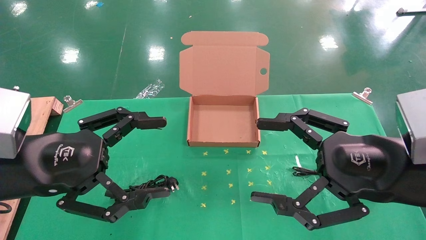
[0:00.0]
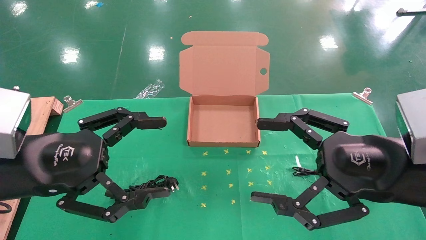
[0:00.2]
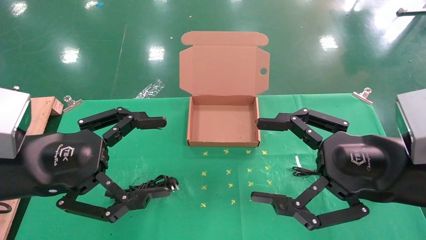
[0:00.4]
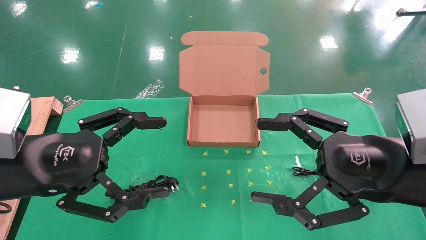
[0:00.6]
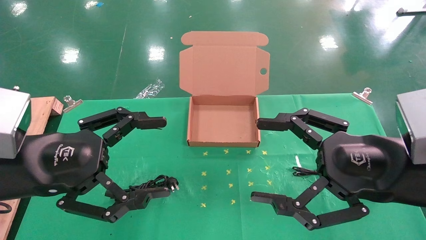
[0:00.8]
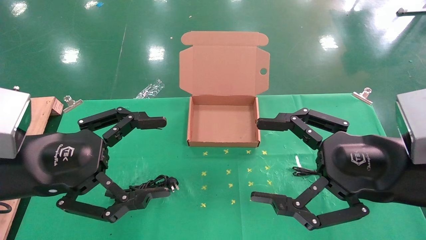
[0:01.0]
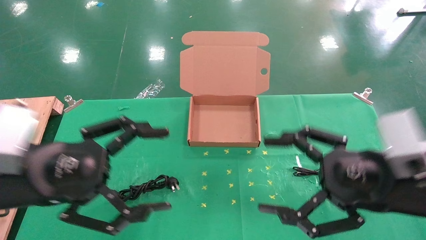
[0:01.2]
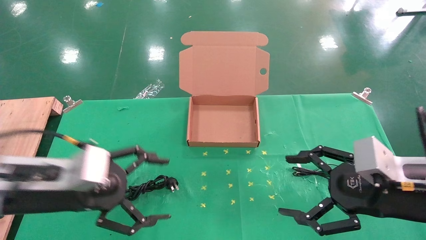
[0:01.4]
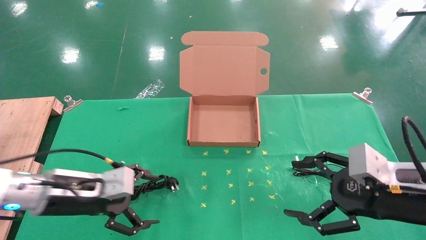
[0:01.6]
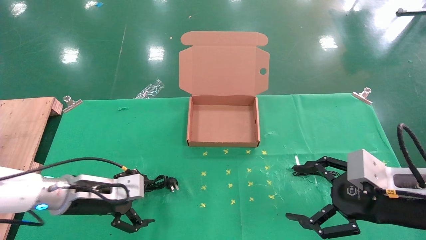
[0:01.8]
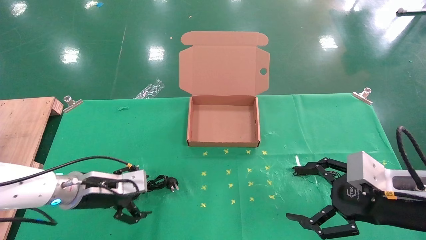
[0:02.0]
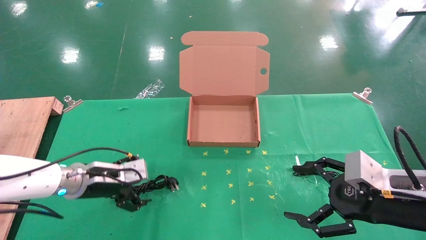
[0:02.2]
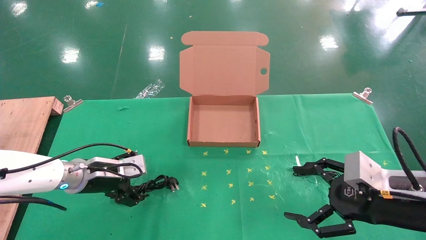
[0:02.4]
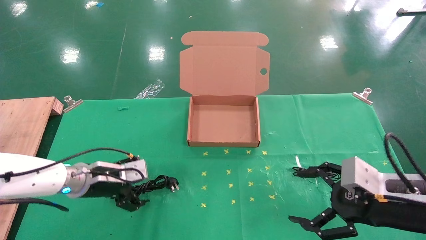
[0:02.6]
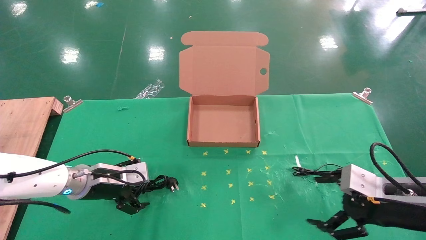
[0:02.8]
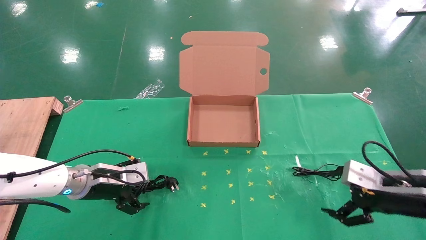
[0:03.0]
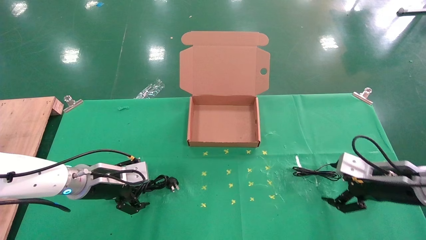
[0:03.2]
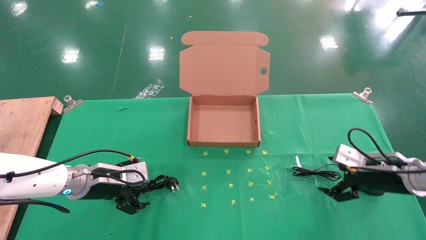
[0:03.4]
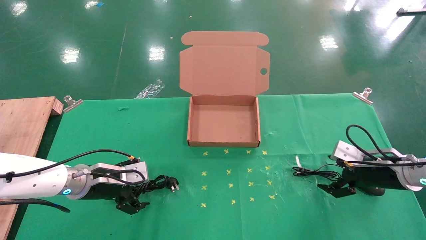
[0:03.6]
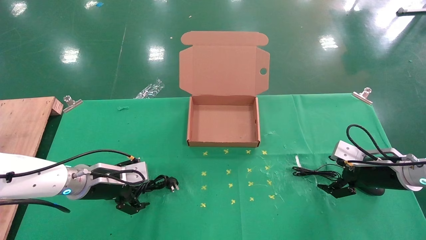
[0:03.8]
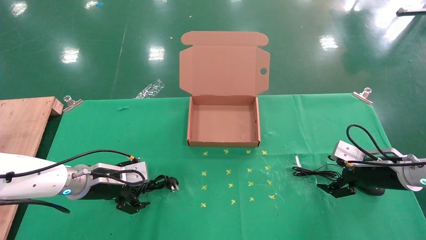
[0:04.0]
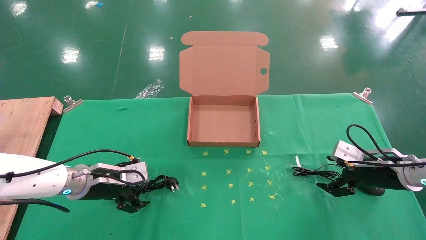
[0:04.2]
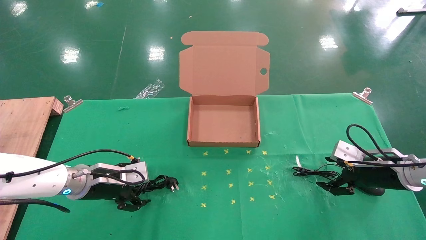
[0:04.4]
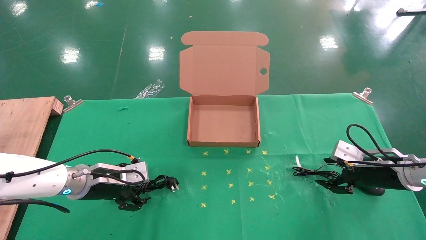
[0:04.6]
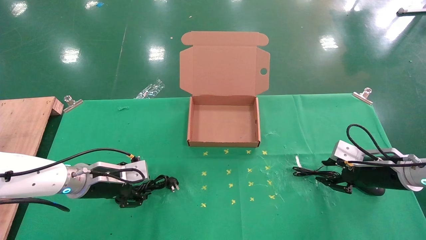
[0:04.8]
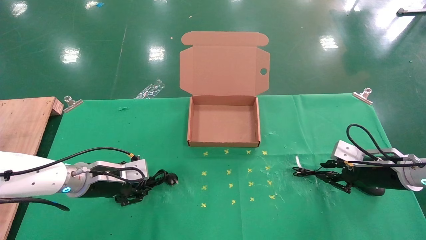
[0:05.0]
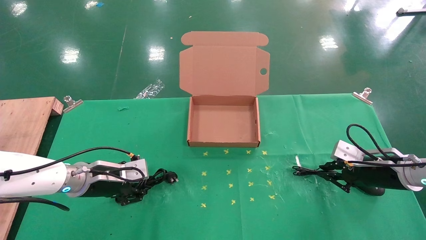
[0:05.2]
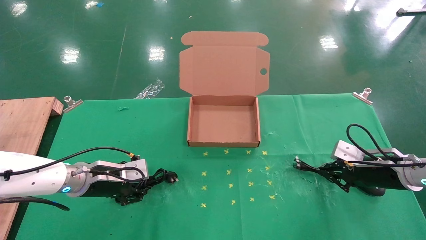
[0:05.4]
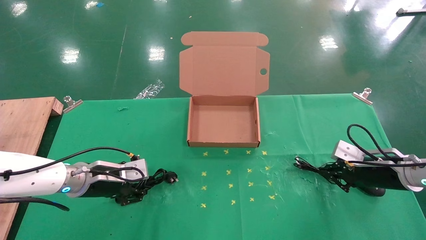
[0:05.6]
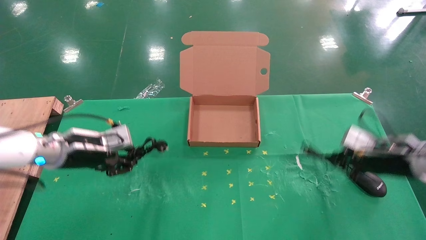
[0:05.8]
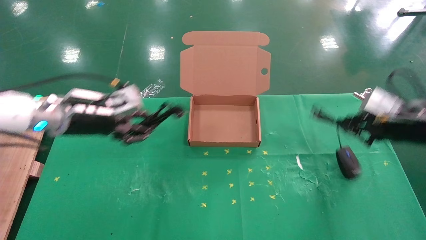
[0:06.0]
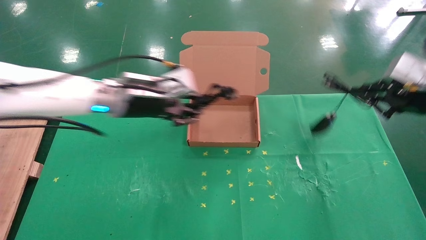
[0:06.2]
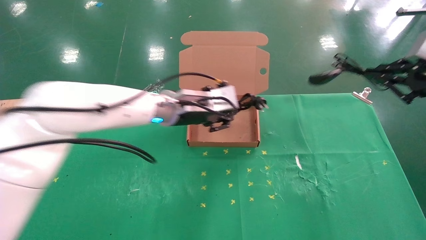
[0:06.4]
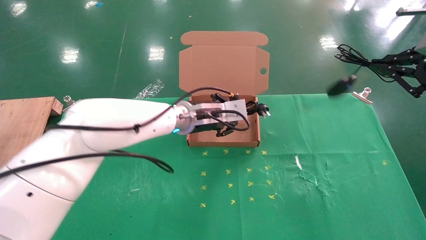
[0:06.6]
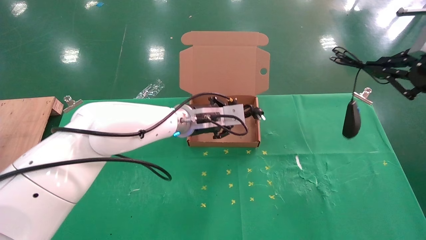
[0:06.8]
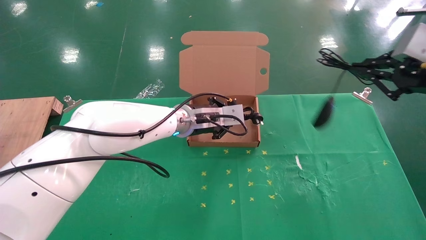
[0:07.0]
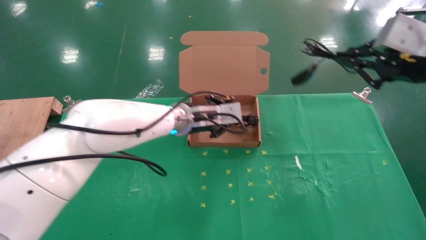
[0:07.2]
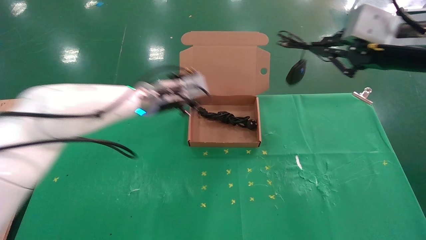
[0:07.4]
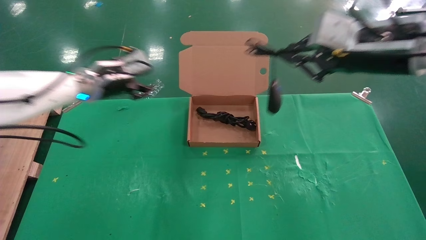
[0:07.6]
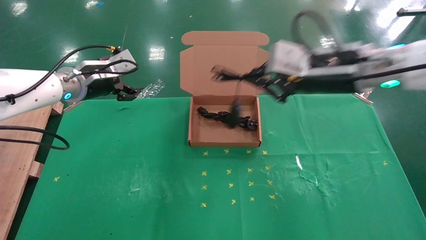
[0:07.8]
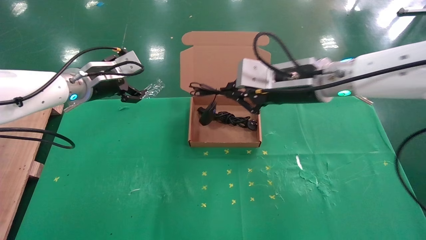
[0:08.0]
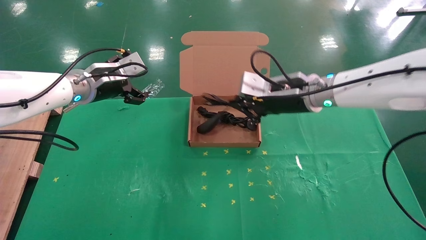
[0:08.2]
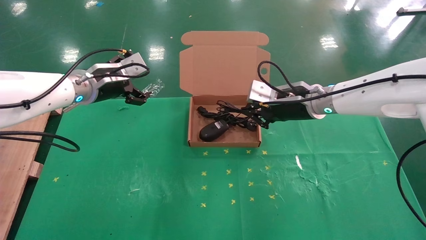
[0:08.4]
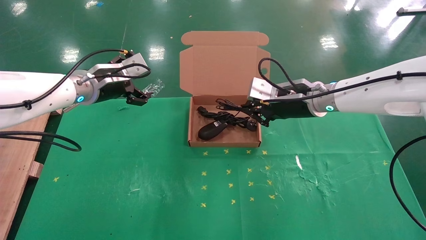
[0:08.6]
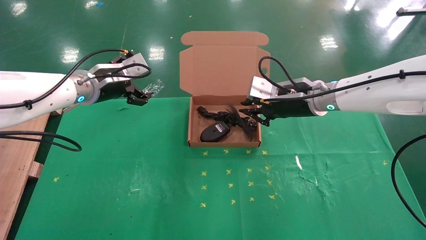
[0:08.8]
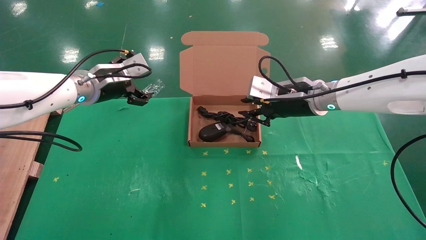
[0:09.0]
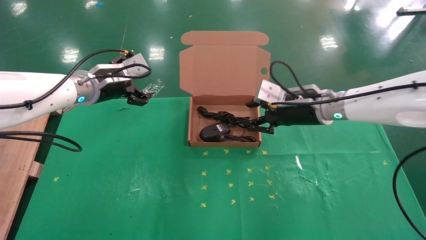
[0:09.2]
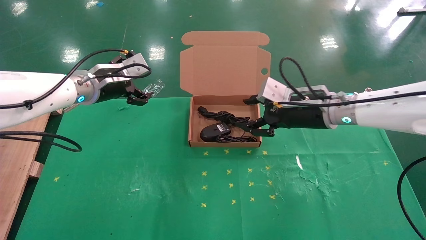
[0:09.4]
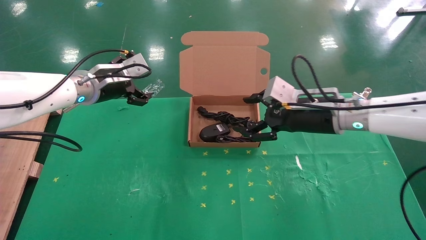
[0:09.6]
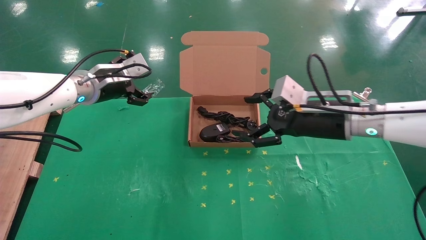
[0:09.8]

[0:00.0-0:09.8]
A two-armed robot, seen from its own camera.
Task of the whole recording: grasp data cable left put into box grasp mouse right put into box.
Step, 0:01.4 to 0:05.2: Simultaneously pick up the mouse and power cord from the accessory packaging area.
Step, 0:05.4 to 0:08.6: Place the mouse and power cord into the box.
0:00.0 to 0:01.4: The left gripper moves downward and forward, about 10 cm, while the right gripper travels downward by roughly 5 cm.
0:01.4 to 0:02.8: The left gripper heads forward and downward, covering approximately 15 cm. The right gripper heads downward, covering about 5 cm.
0:02.8 to 0:04.2: The right gripper goes roughly 10 cm forward.
0:04.2 to 0:05.6: The left gripper closes up. Meanwhile the right gripper closes its fingers.
0:05.6 to 0:07.0: The left gripper heads to the right, covering some 20 cm. The right gripper goes about 25 cm upward and backward.
0:07.0 to 0:08.4: The right gripper moves to the left, forward and downward, some 25 cm, while the left gripper goes some 20 cm to the left, and opens up.
0:08.4 to 0:09.8: The right gripper travels backward by about 10 cm, and opens up.

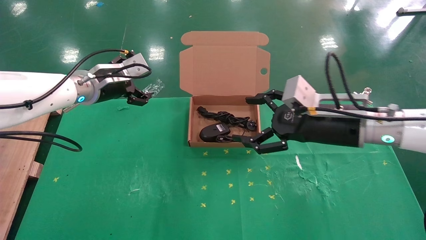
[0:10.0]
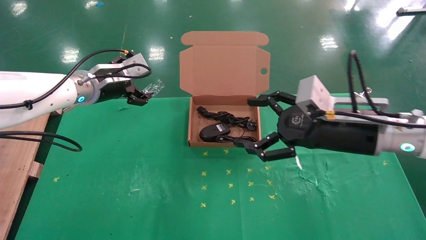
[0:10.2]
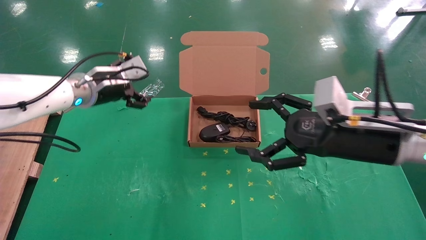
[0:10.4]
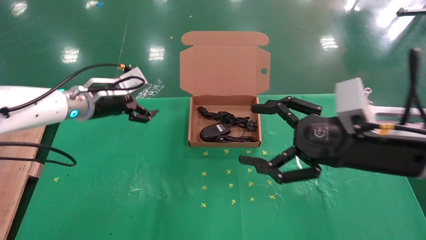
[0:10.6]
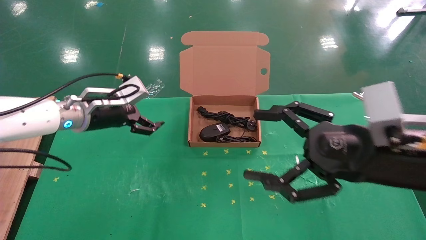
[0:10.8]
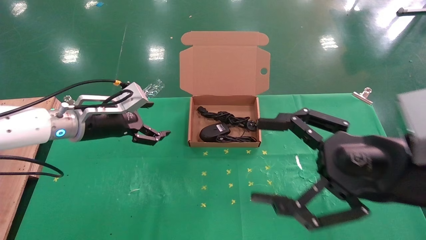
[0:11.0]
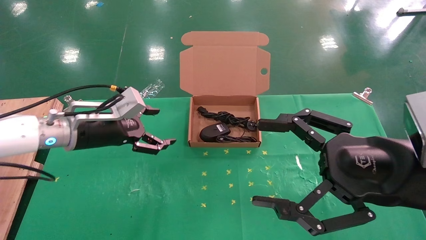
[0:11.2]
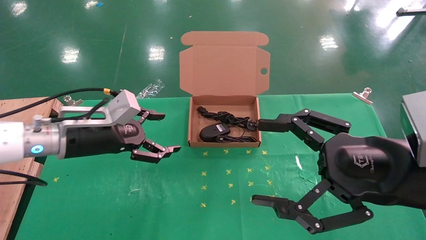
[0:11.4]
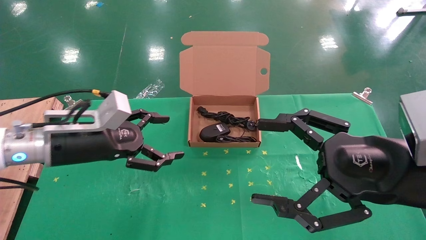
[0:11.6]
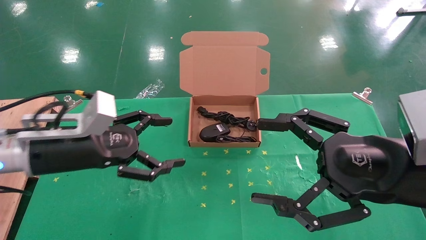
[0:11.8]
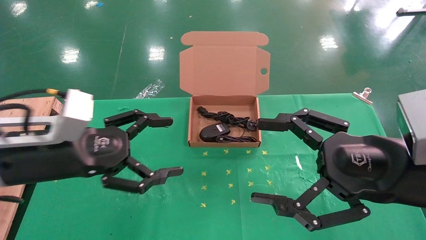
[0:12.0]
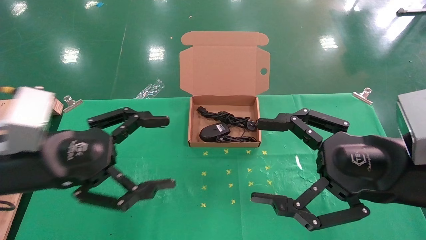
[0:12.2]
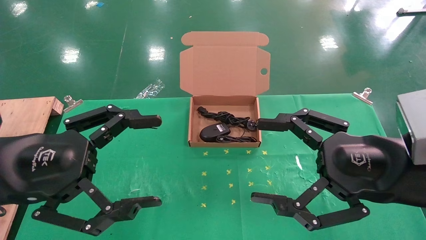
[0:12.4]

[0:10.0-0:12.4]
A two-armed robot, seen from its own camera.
Task of the whole recording: grasp data cable left put into box grasp mouse right put into box.
0:10.0 to 0:11.2: The left gripper moves backward and downward, roughly 10 cm; the right gripper moves backward, some 15 cm.
0:11.2 to 0:12.4: The left gripper heads backward, covering approximately 15 cm.

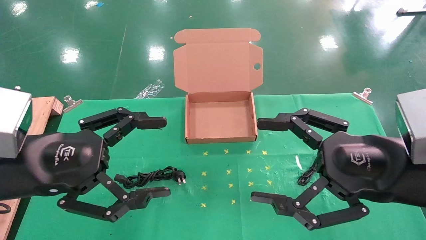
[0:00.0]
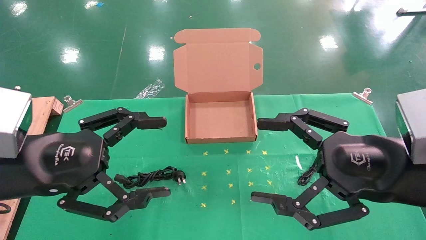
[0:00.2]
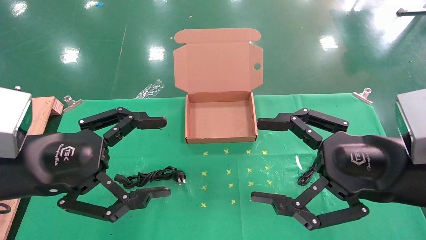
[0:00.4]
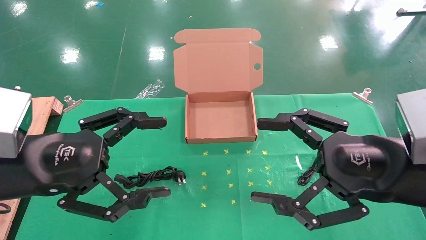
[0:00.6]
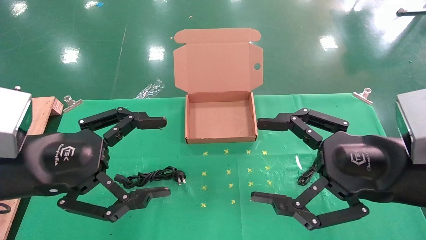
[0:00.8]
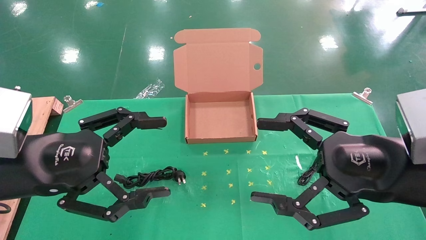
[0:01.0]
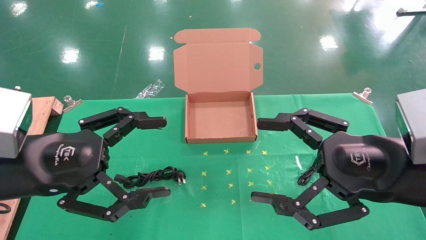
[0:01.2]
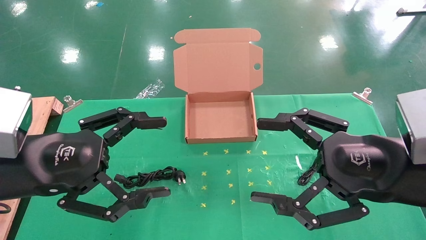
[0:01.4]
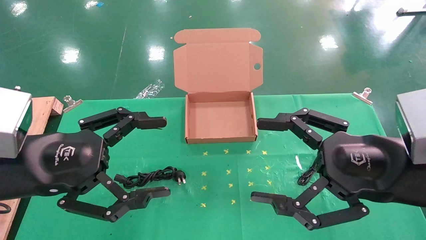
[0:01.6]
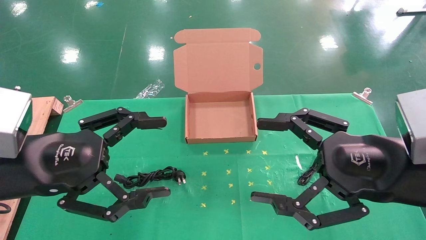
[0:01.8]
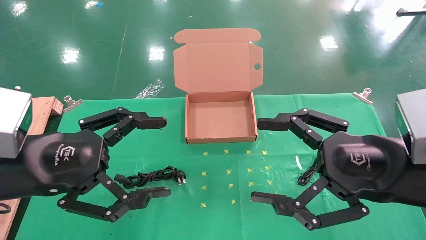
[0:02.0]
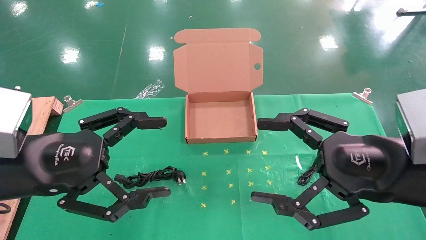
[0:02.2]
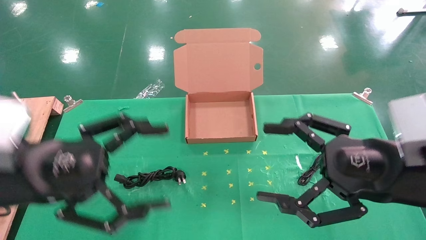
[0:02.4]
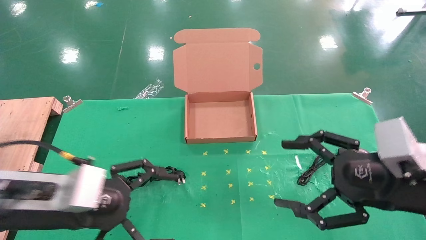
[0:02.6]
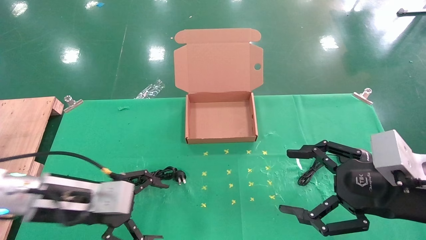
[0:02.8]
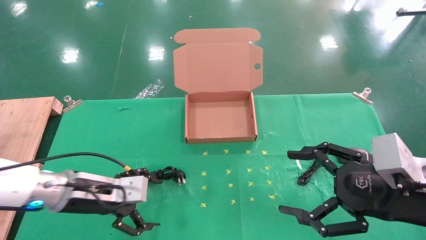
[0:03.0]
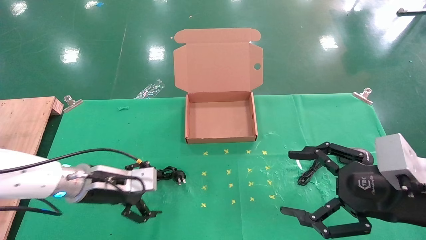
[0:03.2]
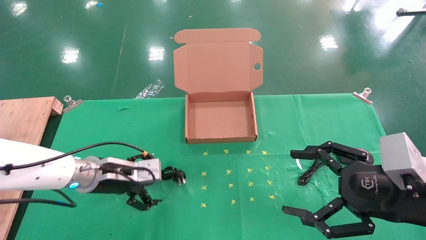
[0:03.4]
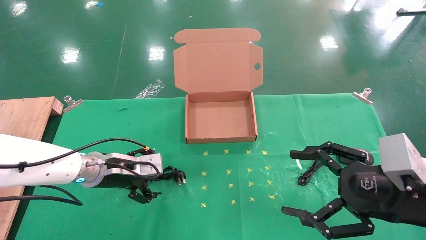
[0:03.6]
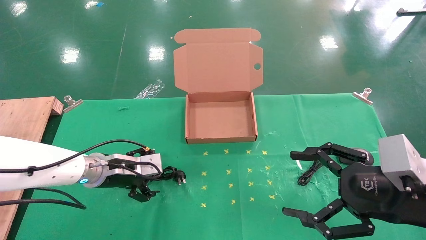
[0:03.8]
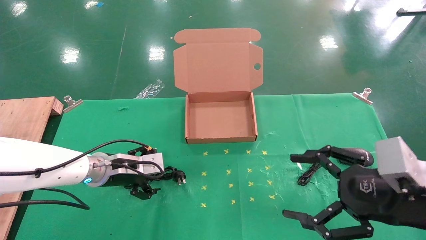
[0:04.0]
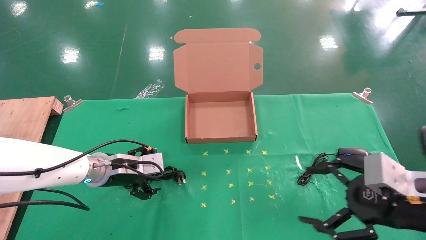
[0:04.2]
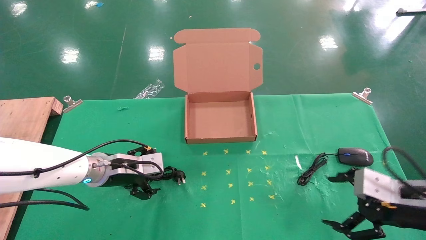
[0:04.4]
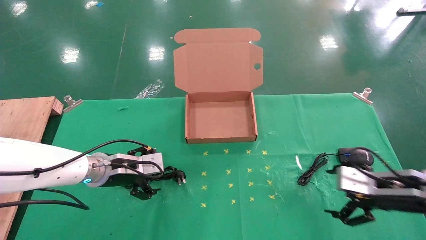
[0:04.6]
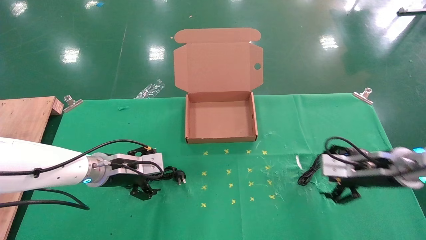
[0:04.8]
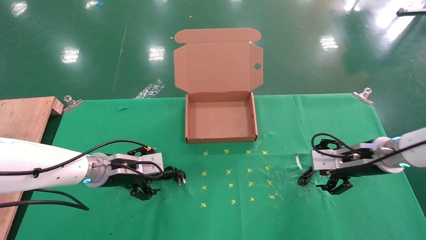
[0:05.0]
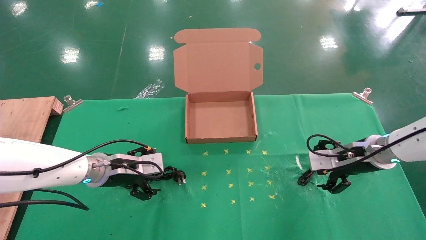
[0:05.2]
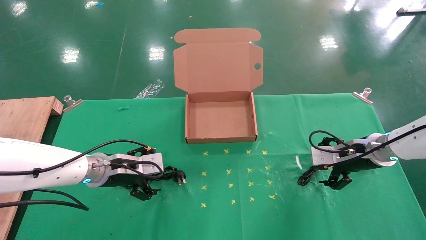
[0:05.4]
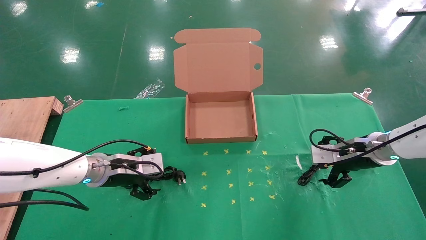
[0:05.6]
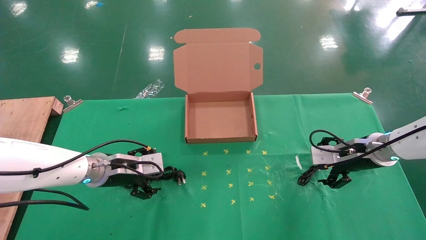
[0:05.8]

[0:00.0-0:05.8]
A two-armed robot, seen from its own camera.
Task of the whole recording: grasp data cable left put into box grasp mouse right put into box.
0:00.0 to 0:01.4: Both grippers stay put.
0:01.4 to 0:02.8: The right gripper moves some 5 cm. Meanwhile the left gripper shifts roughly 15 cm downward and forward.
0:02.8 to 0:04.4: The right gripper shifts approximately 10 cm downward, forward and to the right. The left gripper is displaced forward by roughly 10 cm.
0:04.4 to 0:05.8: The right gripper moves forward, about 15 cm.
